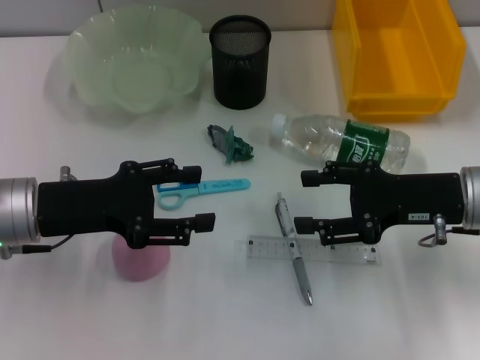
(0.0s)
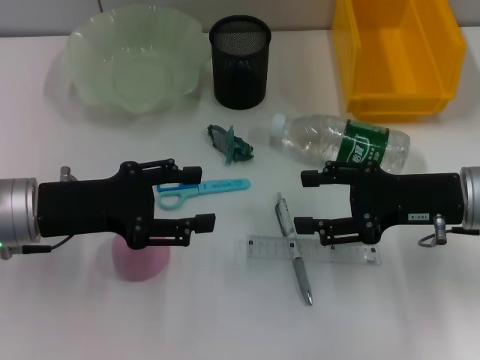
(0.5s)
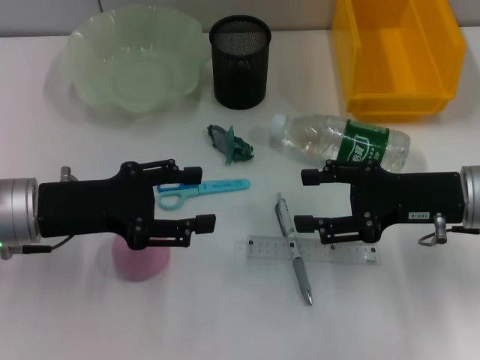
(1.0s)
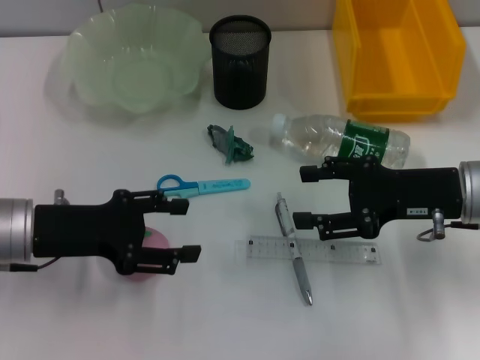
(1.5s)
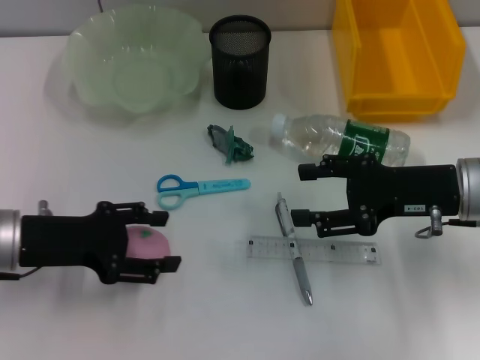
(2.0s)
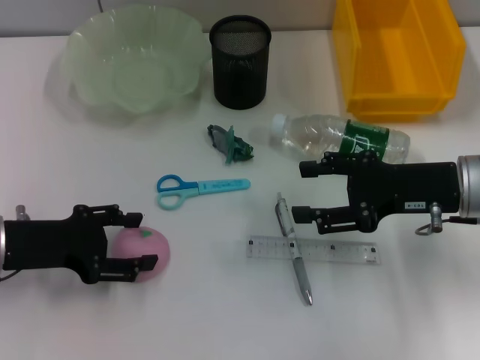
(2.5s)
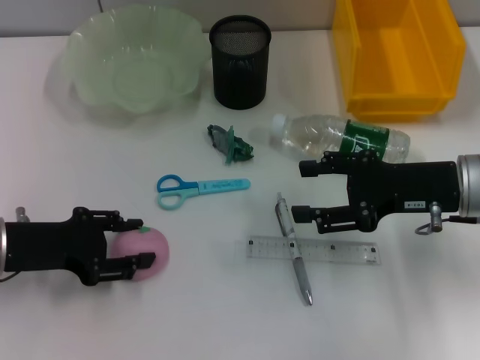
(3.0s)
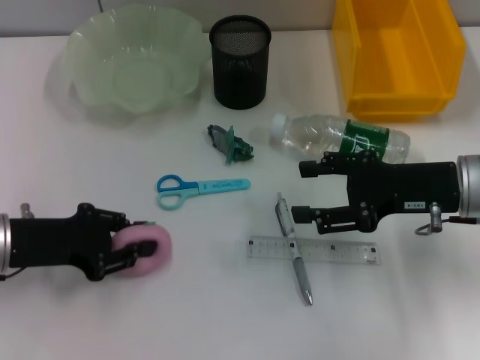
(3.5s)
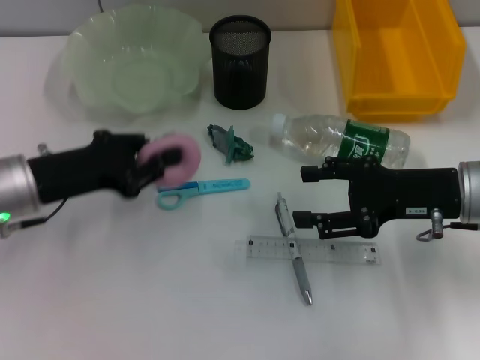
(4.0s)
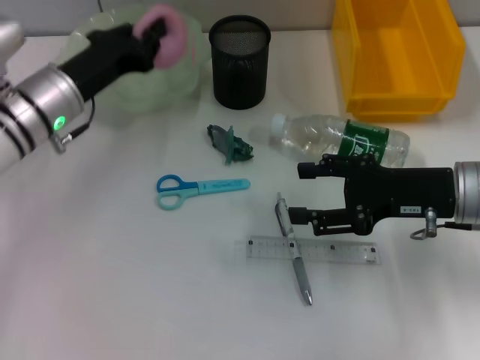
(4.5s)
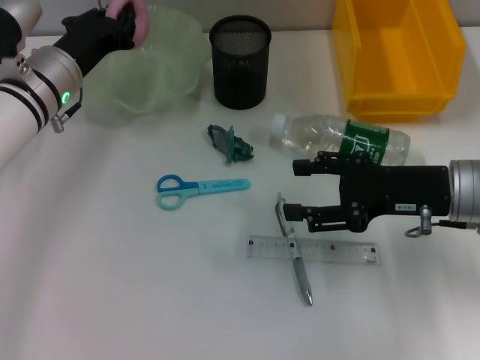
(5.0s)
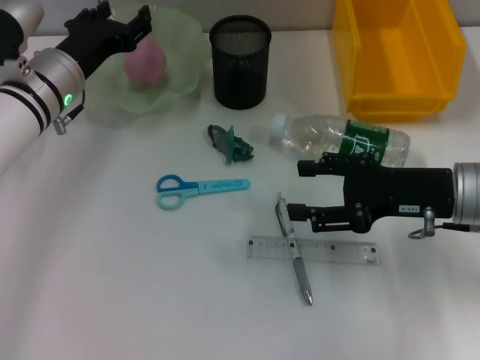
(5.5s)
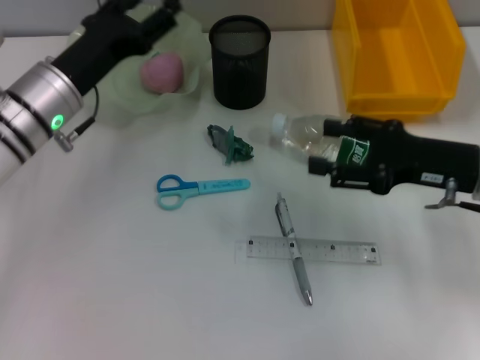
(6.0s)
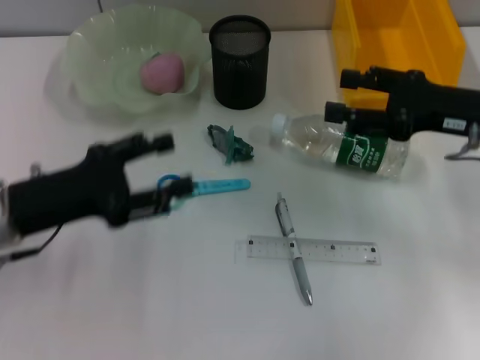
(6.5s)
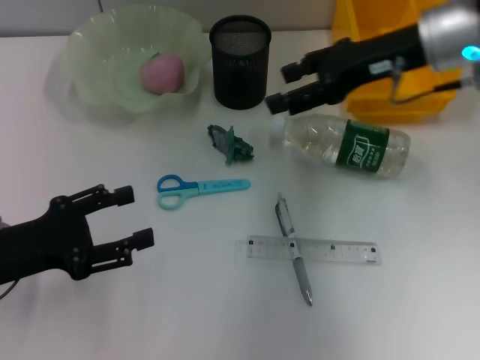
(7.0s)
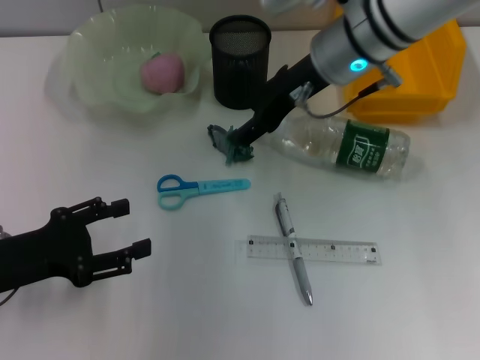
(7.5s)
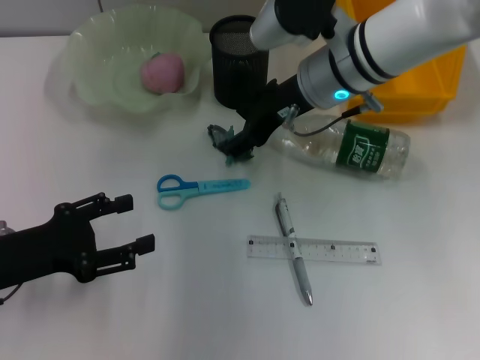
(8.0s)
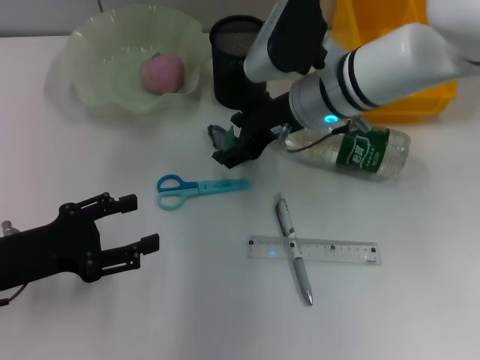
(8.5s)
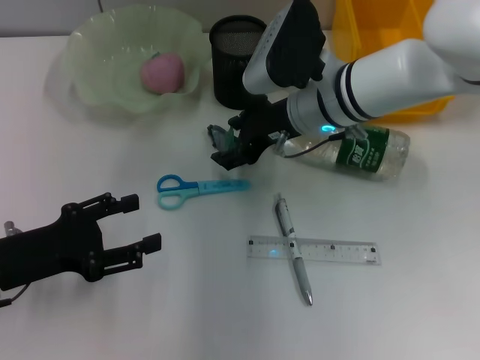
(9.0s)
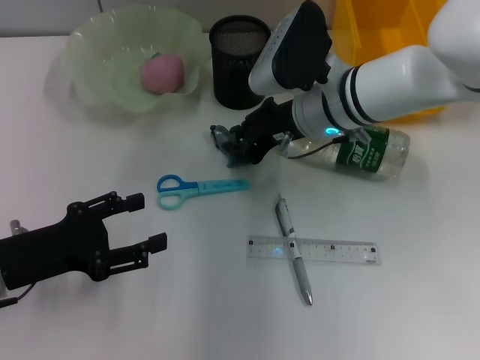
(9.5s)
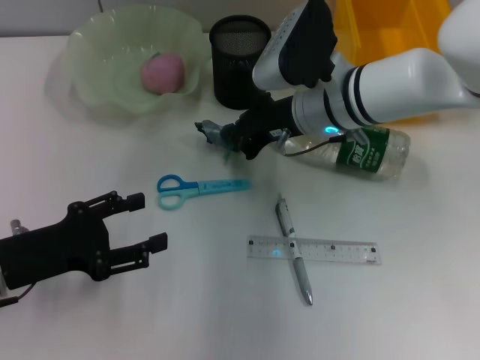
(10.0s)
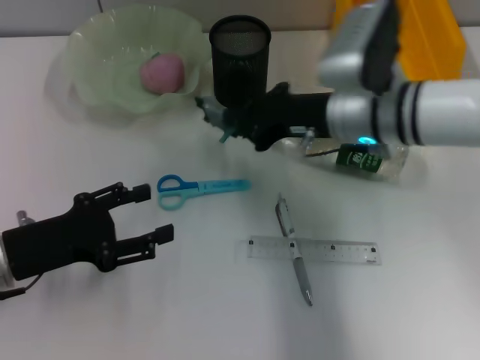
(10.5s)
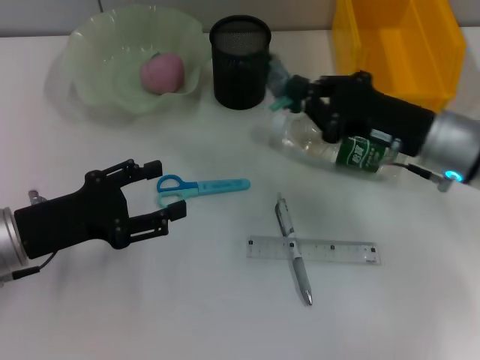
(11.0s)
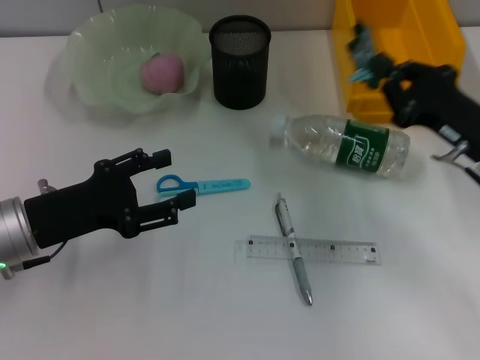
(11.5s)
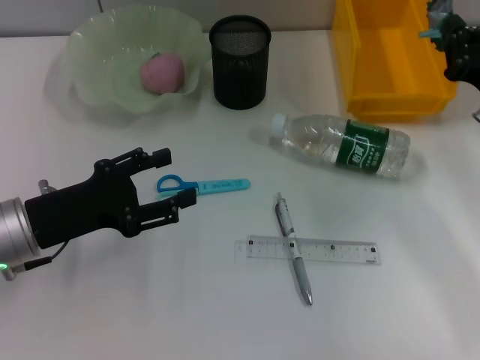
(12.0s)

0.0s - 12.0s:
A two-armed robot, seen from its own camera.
Step, 0.0s - 3.0s: Grab the peach with the left hand.
Step, 3.5s - 5.5s: Place the peach into the fruit bowl with the left hand.
Step, 6.0s - 9.5s: Grab the plastic with the right hand.
0.0s - 2.0s: There are only small adjustments of the grippers.
2.0s - 4.0s: The left gripper closes its fingers.
4.0s - 6.0s: The left gripper goes roughly 5 cm forward, and opens its fingers.
6.0s - 8.0s: The left gripper shifts some 15 cm backward and to the left; the right gripper moves to the left and forward, approximately 20 cm.
8.0s - 10.0s: The right gripper closes.
10.0s - 12.0s: The right gripper shifts some 20 cm to the right.

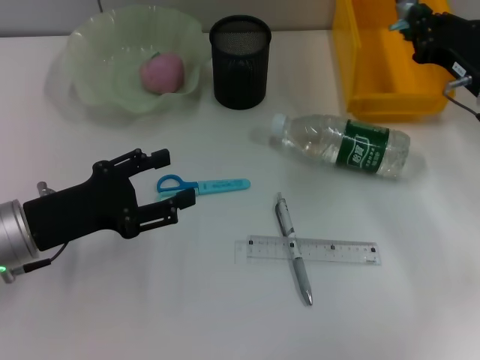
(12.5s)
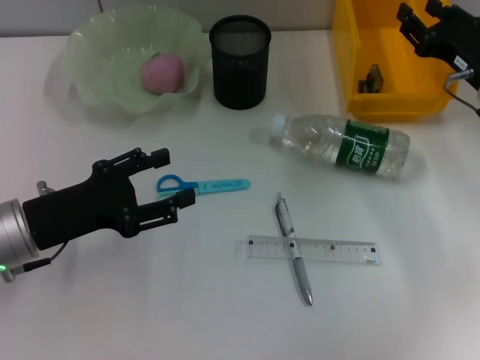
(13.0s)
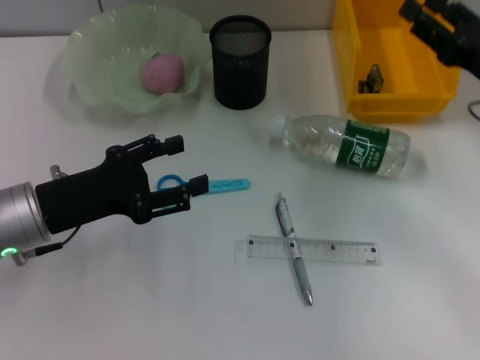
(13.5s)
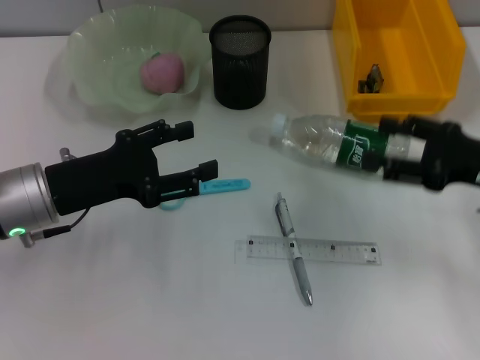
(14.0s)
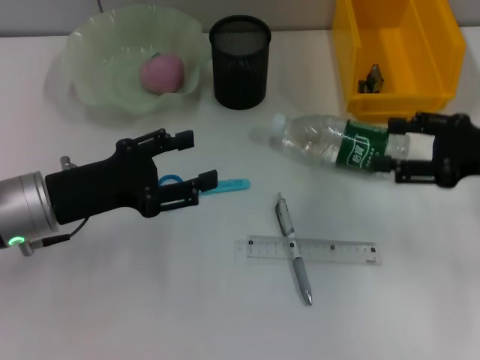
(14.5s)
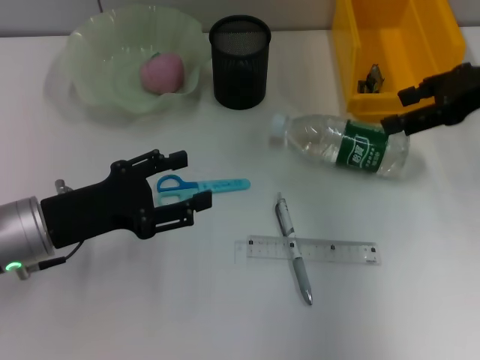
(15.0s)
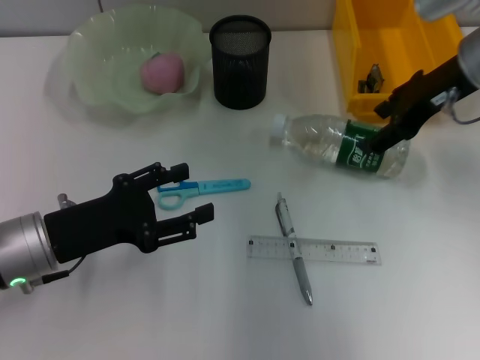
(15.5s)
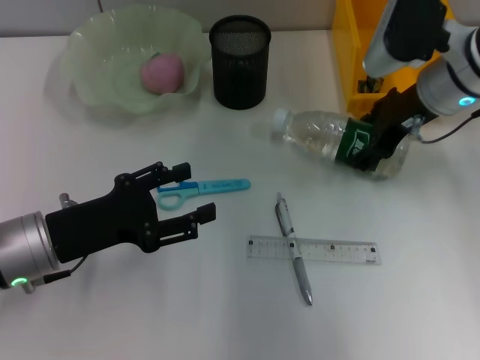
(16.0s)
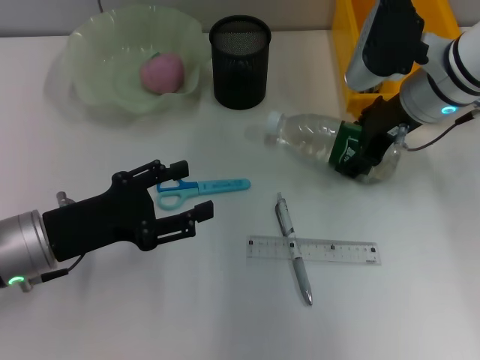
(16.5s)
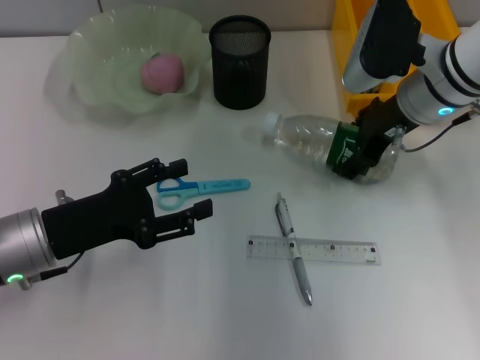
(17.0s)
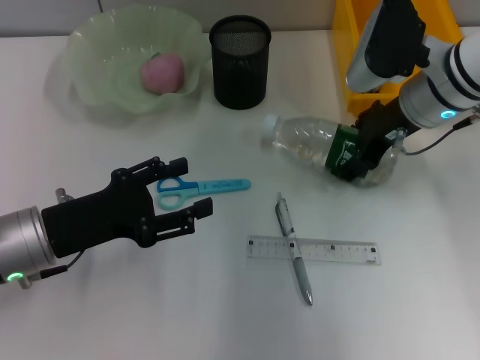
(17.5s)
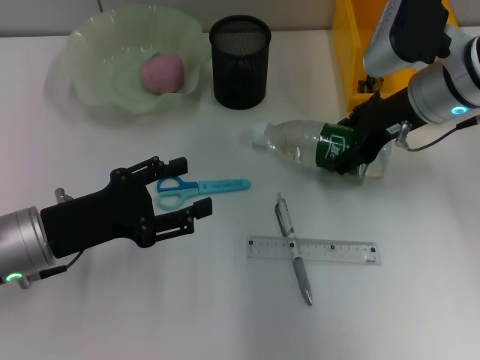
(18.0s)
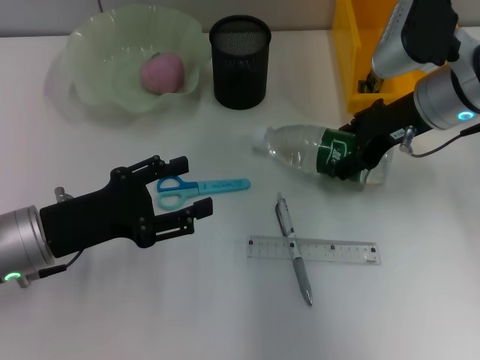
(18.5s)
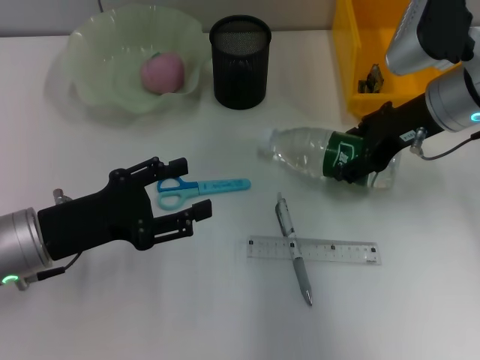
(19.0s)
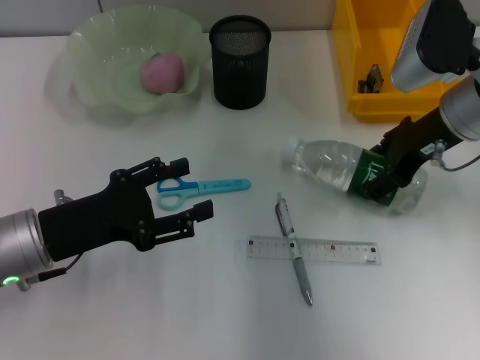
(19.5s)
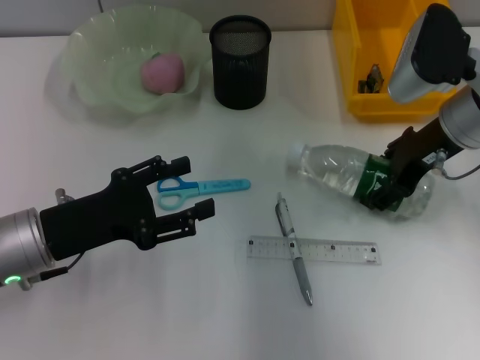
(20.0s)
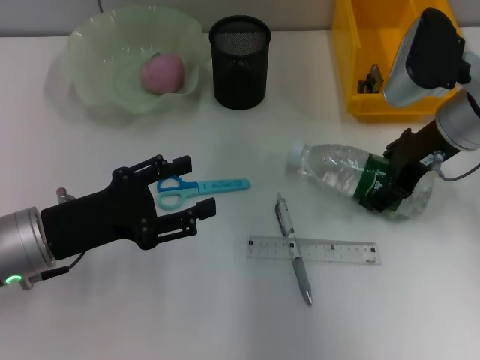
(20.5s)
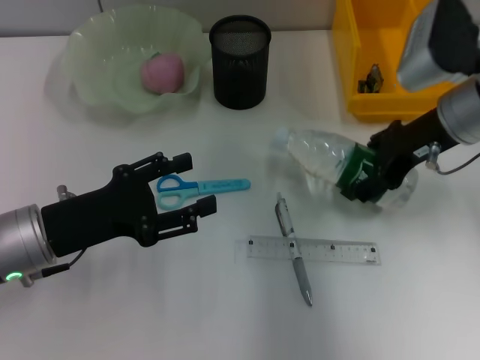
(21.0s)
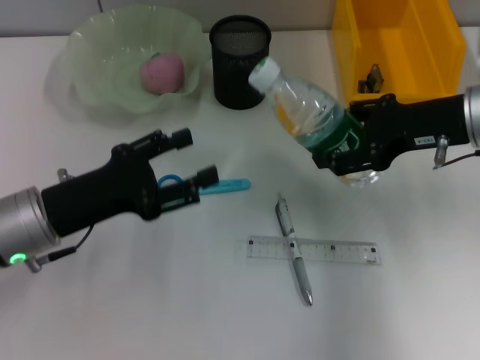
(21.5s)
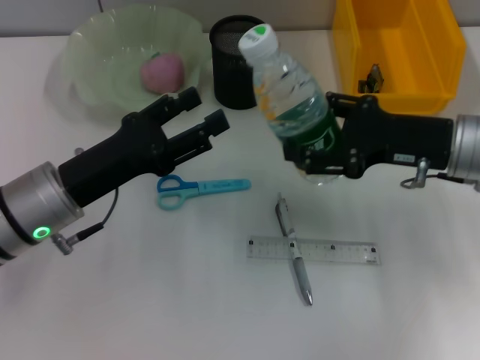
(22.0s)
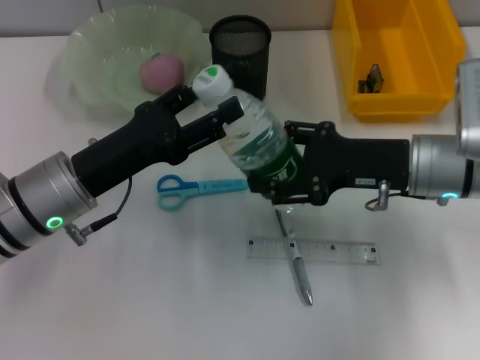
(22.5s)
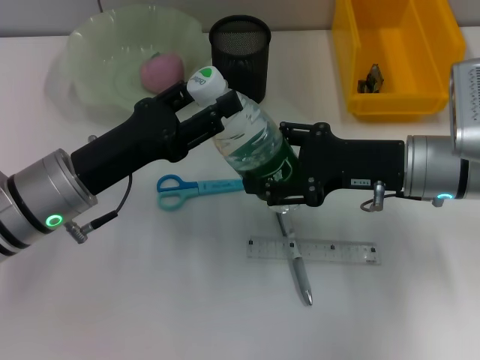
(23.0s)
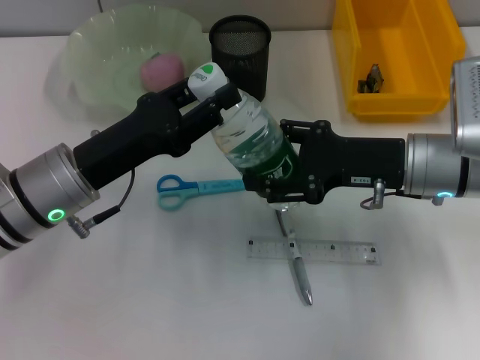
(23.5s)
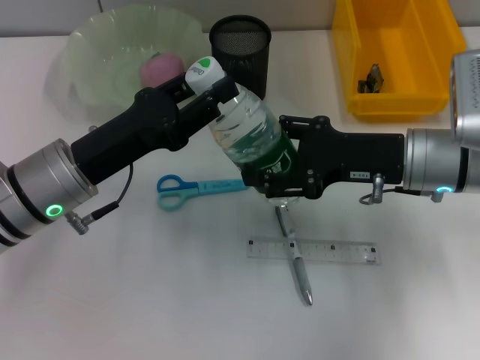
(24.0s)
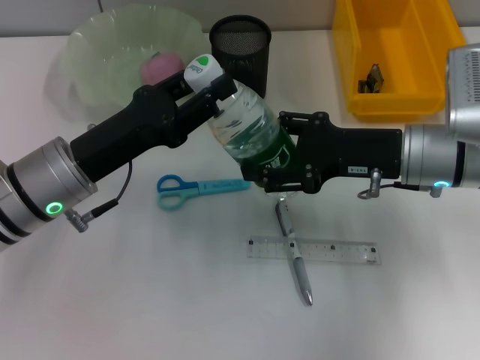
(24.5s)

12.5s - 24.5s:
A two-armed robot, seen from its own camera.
Step, 13.5s - 16.5s: Grab the water bottle with the right hand.
12.5s - 14.5s: The right gripper is displaced backward by roughly 5 cm, and opens its fingers.
14.5s - 16.5s: The right gripper goes some 15 cm to the left and forward.
16.5s - 20.5s: The grippers make only small movements.
20.5s - 22.5s: The right gripper is displaced backward by roughly 5 cm; the left gripper ends up about 5 cm from where it was.
22.5s - 24.5s: The left gripper closes.

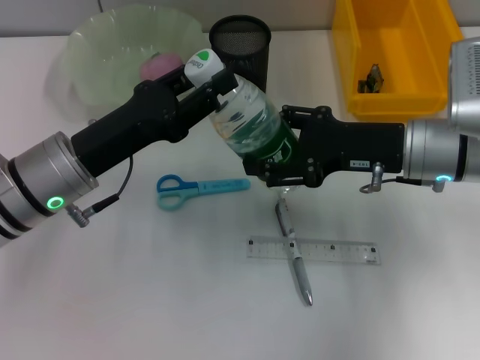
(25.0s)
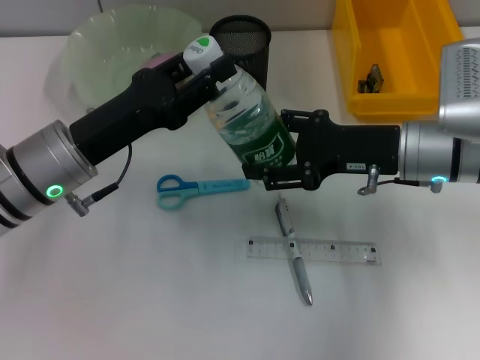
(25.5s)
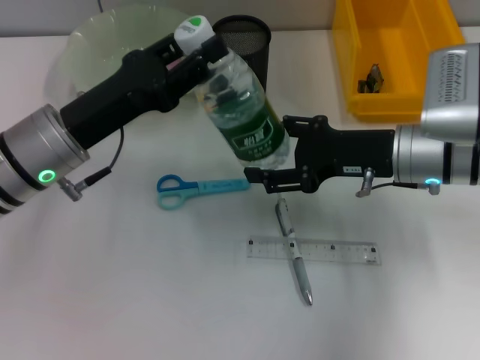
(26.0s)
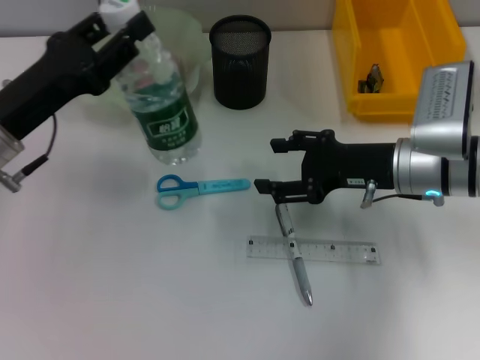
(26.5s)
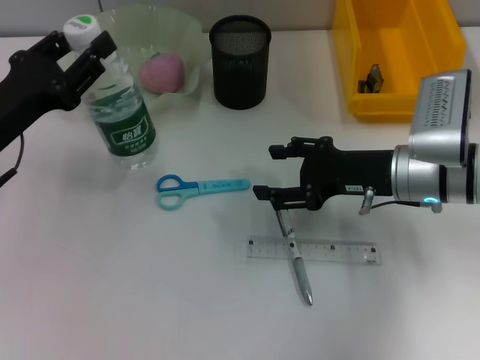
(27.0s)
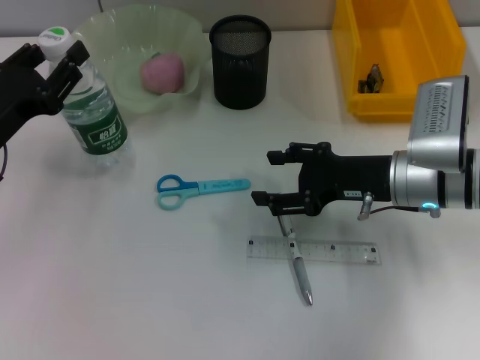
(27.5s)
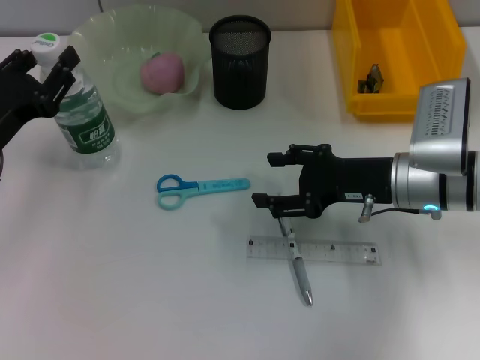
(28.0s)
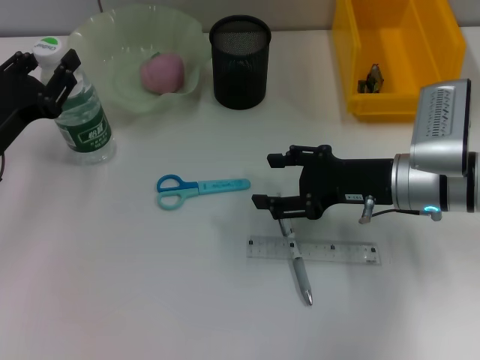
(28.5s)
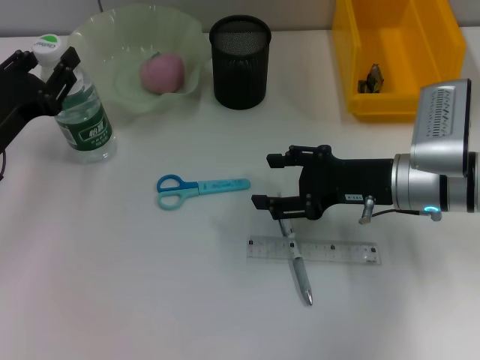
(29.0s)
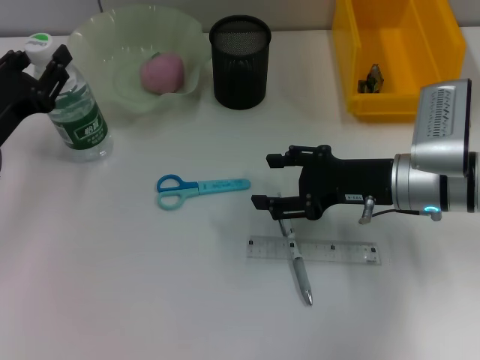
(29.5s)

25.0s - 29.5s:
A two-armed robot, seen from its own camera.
25.0s - 27.0s: The left gripper goes some 10 cm to the left.
